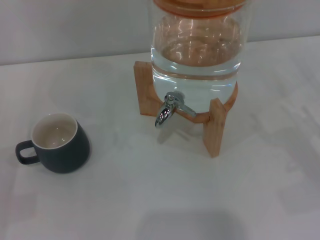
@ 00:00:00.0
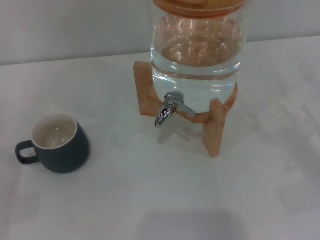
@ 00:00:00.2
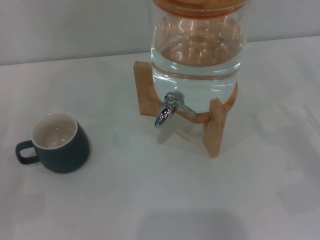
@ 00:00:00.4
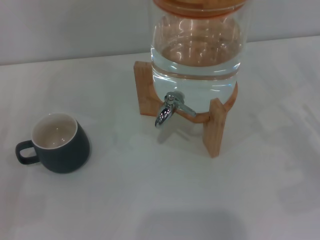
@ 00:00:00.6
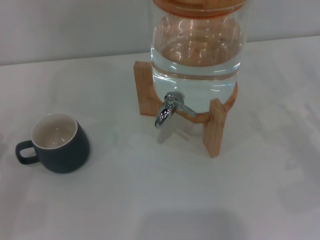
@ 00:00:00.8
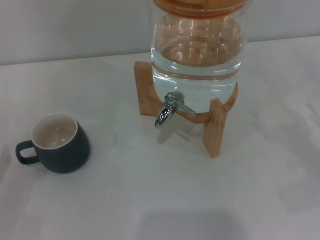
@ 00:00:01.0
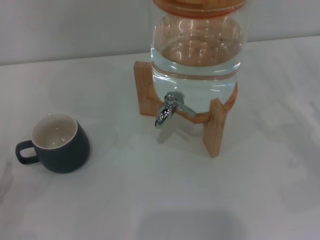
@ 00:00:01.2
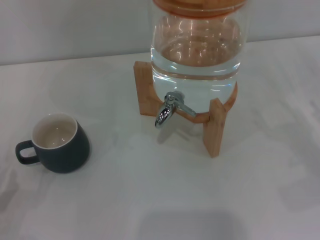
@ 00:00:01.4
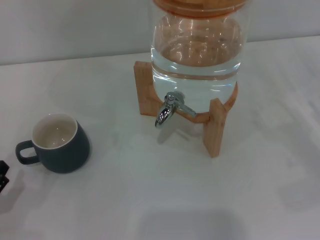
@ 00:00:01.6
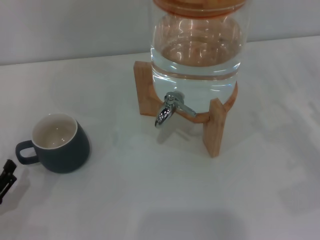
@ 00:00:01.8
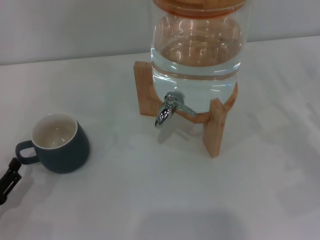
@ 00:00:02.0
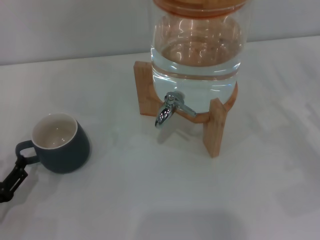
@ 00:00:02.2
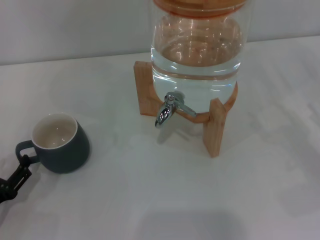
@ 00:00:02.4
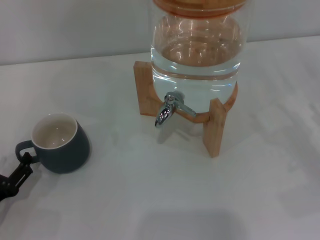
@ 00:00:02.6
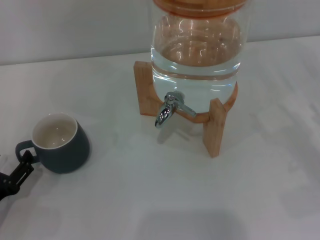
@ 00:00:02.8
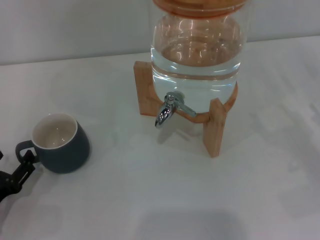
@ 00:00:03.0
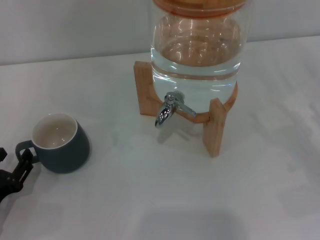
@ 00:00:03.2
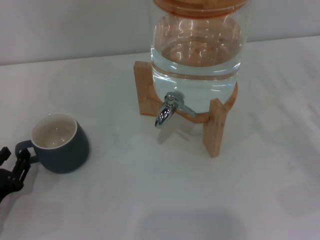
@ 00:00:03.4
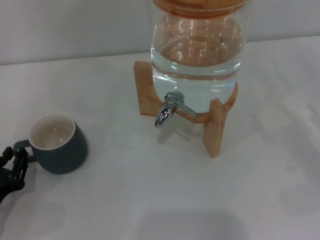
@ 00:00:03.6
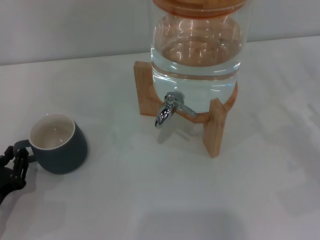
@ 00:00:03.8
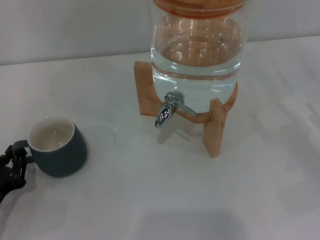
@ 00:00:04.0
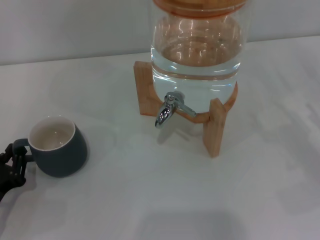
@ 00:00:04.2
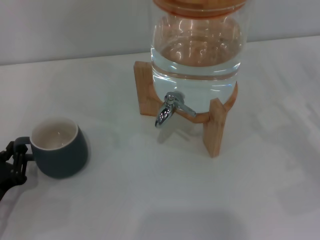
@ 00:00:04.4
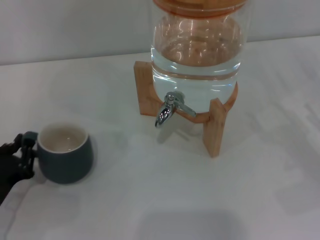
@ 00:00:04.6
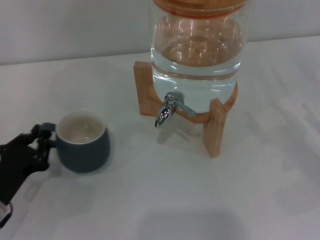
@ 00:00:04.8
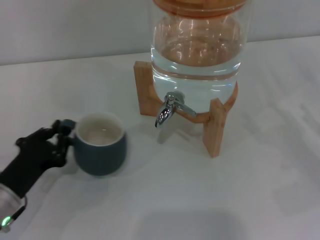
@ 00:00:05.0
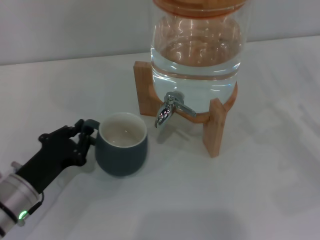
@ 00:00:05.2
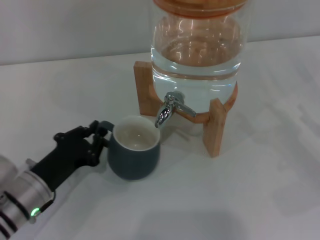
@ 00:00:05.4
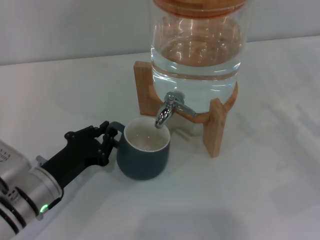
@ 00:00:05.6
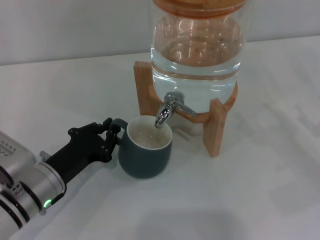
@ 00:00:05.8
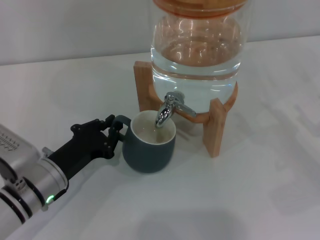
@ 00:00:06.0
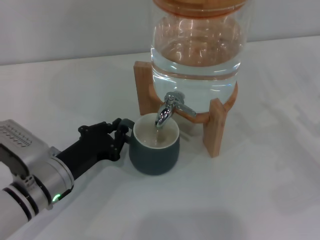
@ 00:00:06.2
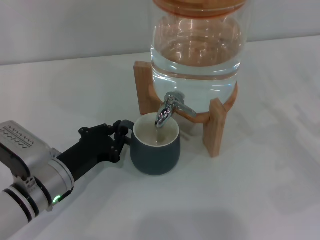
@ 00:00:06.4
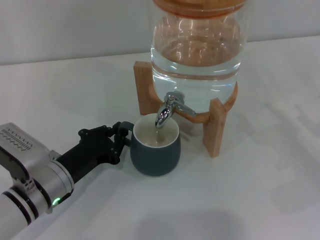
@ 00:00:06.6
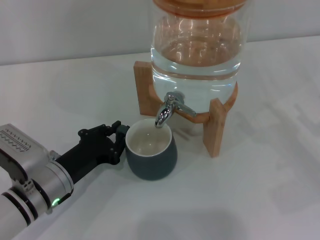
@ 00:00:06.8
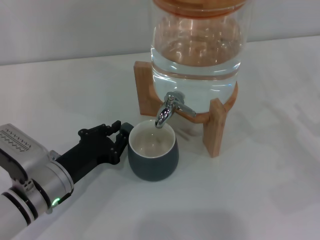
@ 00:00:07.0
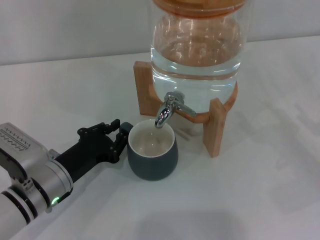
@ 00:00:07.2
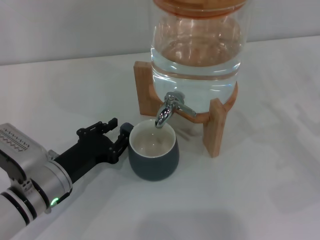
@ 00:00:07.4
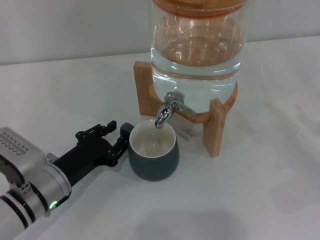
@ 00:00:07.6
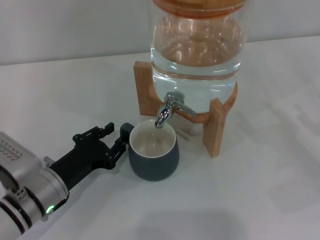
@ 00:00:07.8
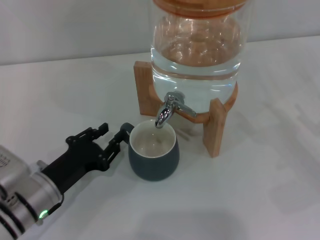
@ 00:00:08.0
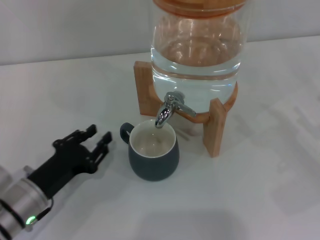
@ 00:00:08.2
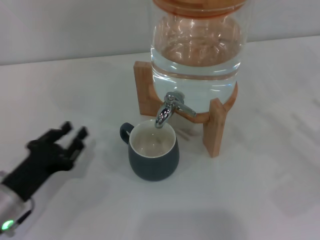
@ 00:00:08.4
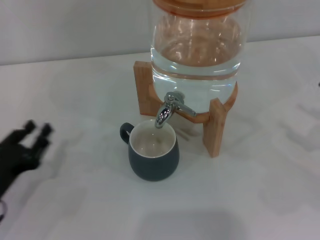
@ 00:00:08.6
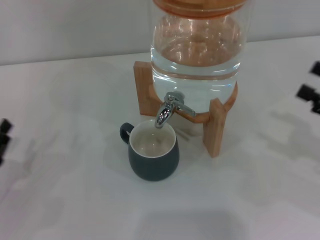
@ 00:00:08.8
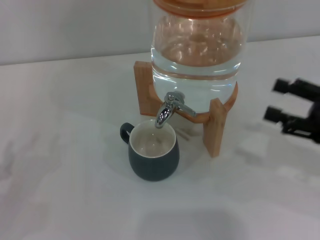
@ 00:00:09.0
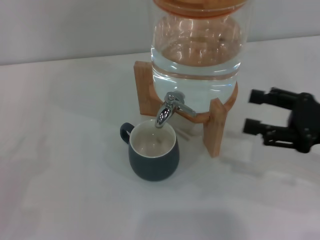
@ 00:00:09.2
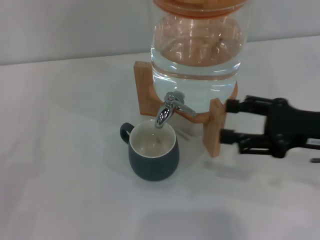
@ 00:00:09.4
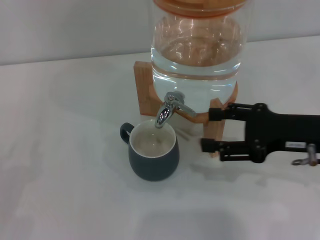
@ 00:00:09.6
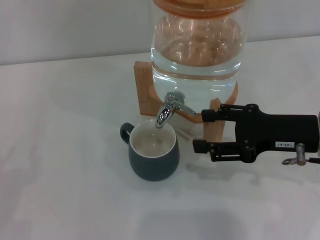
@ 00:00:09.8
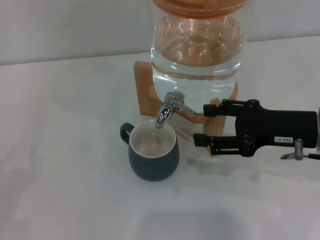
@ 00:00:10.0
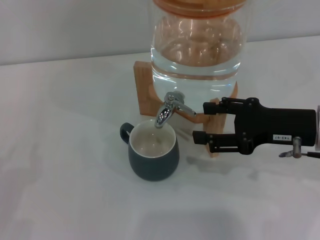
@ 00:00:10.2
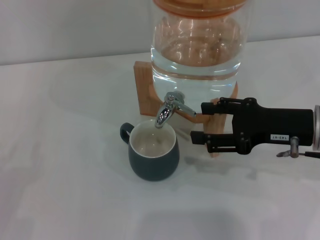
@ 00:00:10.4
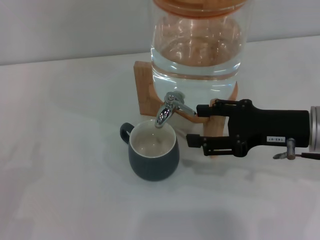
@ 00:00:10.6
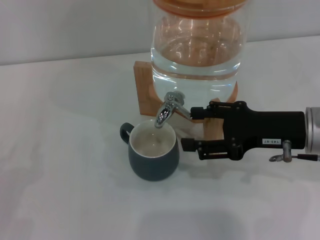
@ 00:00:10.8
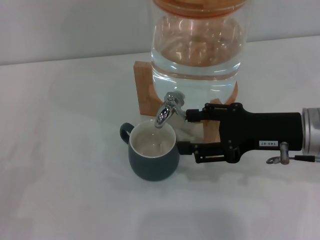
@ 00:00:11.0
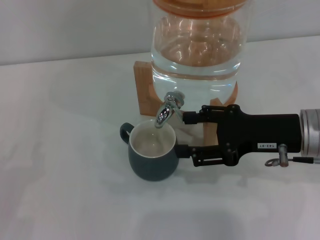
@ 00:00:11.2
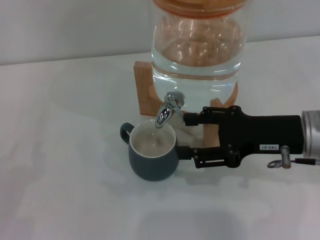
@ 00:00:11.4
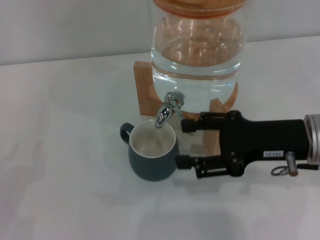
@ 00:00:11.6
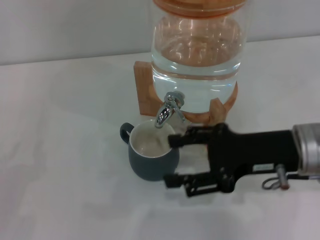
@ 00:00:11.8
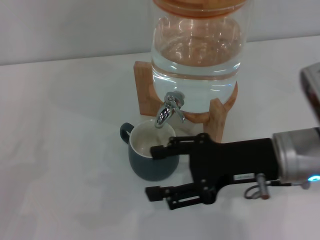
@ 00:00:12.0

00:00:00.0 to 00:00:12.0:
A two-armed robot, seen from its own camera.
Task of the whole recording: the left gripper pick up the black cup and place it horizontally under the faucet, the right gripper turn on the faucet to fill the cup, and then turn off the faucet.
Step, 00:00:00.0 to 00:00:08.0: Move the cup beneath the water dispenser nozzle with the left gripper.
Step, 00:00:08.2 to 00:00:11.6: Open the dispenser valve and fill the cup with water with the right gripper.
00:00:00.0 to 00:00:01.6: The left gripper is displaced backward by approximately 5 cm.
00:00:01.6 to 00:00:03.0: The grippers move only a little.
00:00:03.0 to 00:00:04.4: The left gripper closes.
00:00:04.4 to 00:00:06.0: The left gripper moves to the right and forward, about 10 cm.
00:00:06.0 to 00:00:07.6: Both grippers stay put.
00:00:07.6 to 00:00:09.0: The left gripper moves to the left, about 15 cm, while the right gripper travels upward by some 5 cm.
00:00:09.0 to 00:00:10.4: The right gripper goes roughly 10 cm to the left.
00:00:10.4 to 00:00:12.0: The right gripper shifts approximately 5 cm to the left.

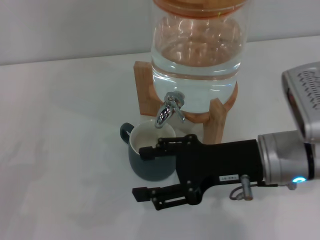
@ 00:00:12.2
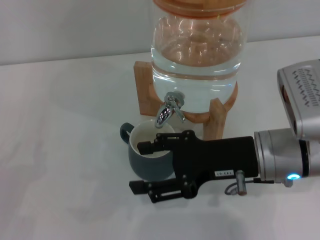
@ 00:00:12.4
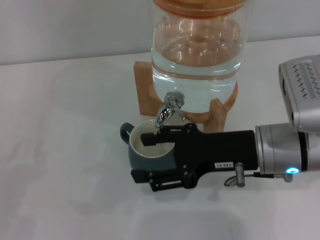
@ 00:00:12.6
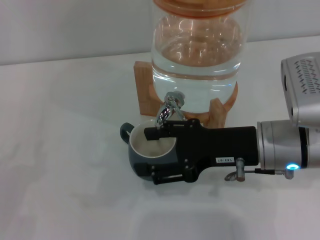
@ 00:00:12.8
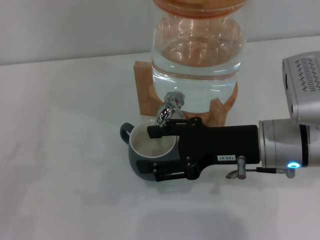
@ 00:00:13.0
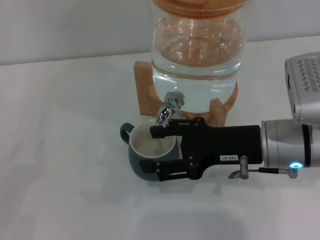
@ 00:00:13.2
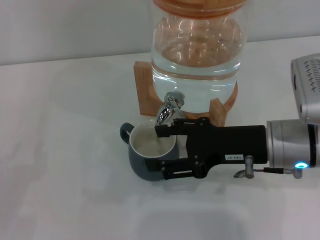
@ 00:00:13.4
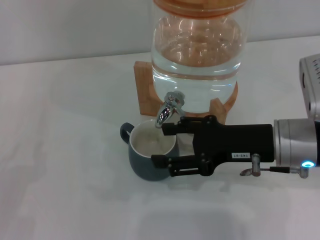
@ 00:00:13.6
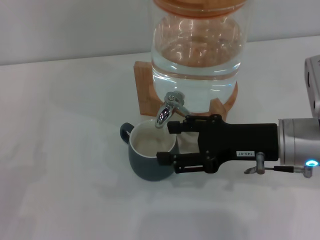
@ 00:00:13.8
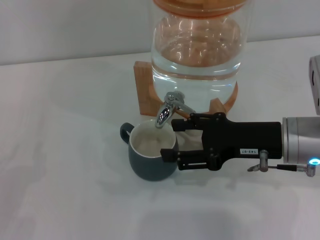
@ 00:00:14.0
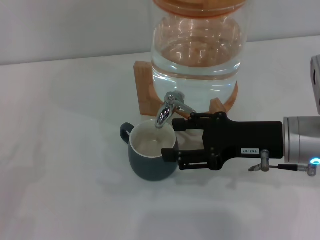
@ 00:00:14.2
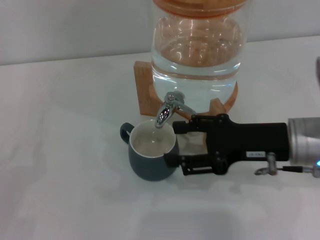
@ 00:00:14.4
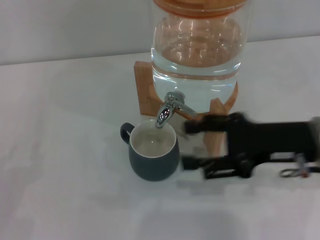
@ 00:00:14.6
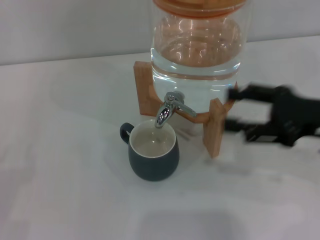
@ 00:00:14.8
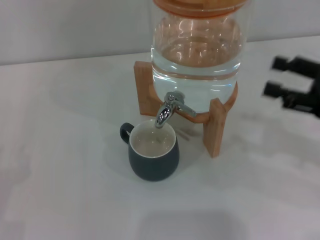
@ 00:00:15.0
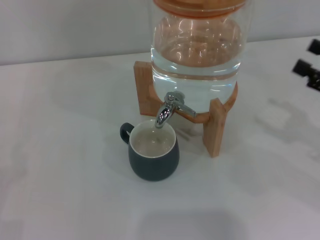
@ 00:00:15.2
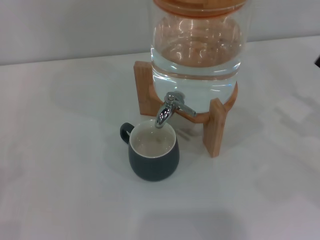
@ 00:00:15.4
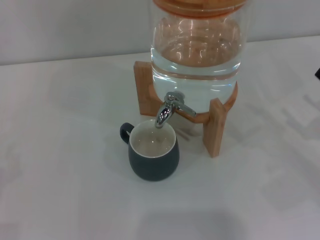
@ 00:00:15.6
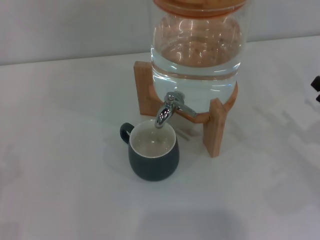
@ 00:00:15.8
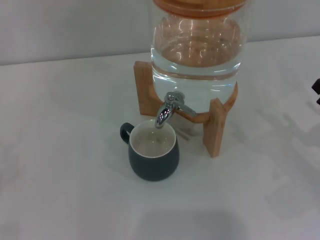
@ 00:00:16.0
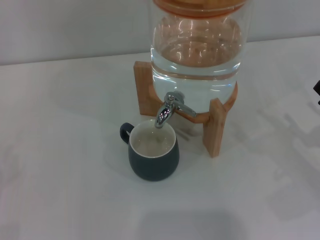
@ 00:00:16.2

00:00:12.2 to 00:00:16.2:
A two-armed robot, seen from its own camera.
Task of the whole recording: the left gripper pick up the black cup and place it horizontally under the faucet, the right gripper turn on the faucet to fill the cup, and then turn off the faucet.
Step, 00:00:12.2 to 00:00:14.6: Close the dispenser valve with the right gripper.
00:00:12.2 to 00:00:13.6: The grippers make only small movements.
00:00:13.6 to 00:00:14.8: The right gripper is displaced to the right by about 10 cm.
00:00:14.8 to 00:00:16.2: The right gripper travels downward and to the right by some 15 cm.
